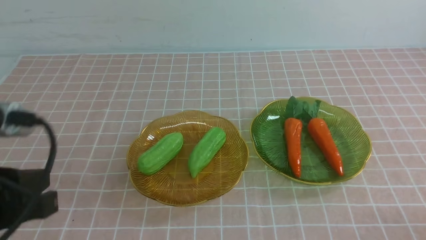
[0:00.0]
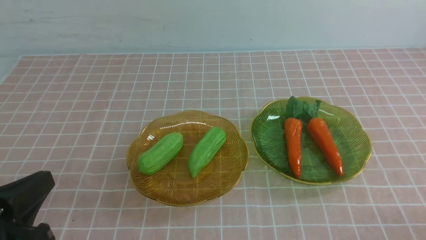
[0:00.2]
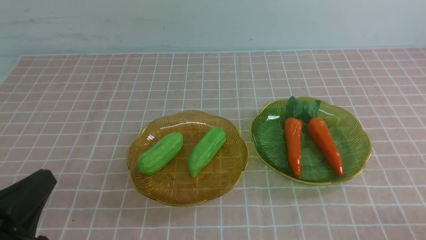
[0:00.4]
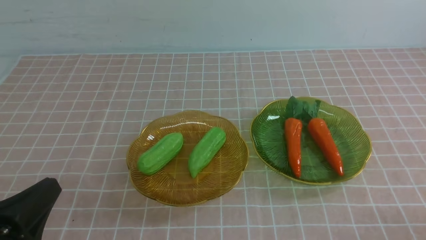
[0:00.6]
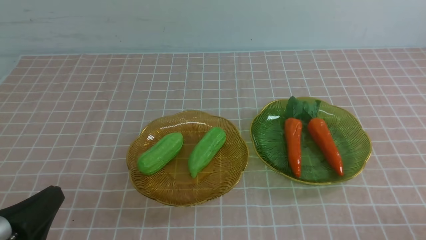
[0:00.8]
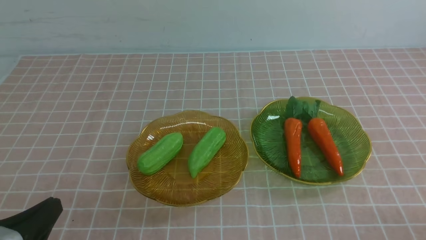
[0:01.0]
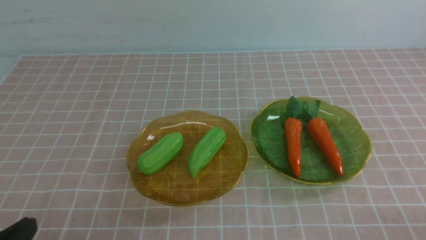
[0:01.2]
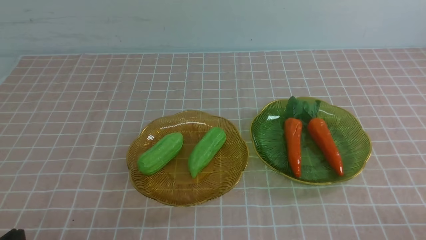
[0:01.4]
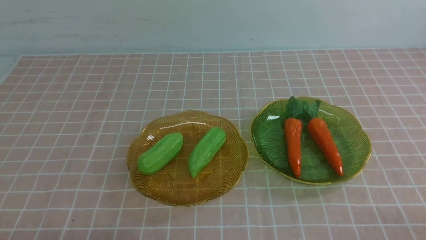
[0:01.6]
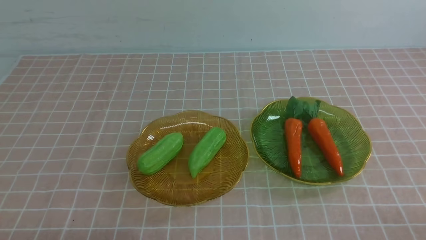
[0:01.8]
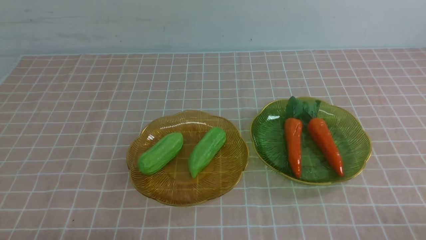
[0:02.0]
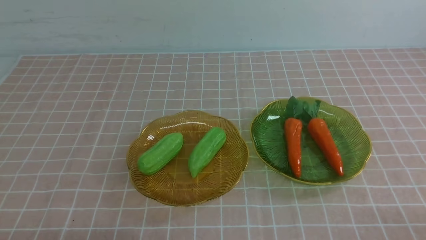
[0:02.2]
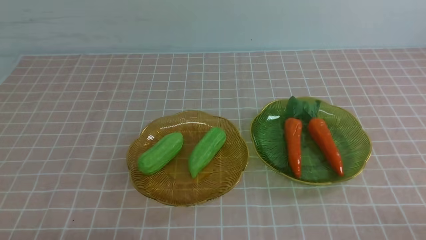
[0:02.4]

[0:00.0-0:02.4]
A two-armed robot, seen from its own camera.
0:00.0 to 0:01.2: The left gripper travels downward by approximately 5 cm.
0:01.2 to 0:02.4: Both grippers stay put.
